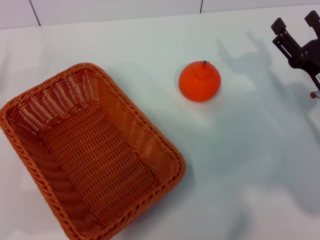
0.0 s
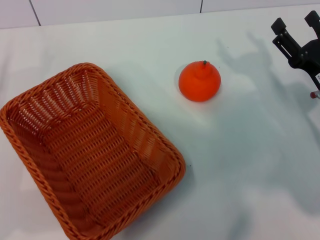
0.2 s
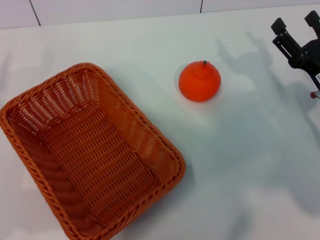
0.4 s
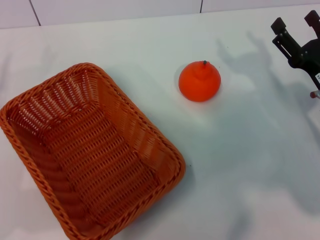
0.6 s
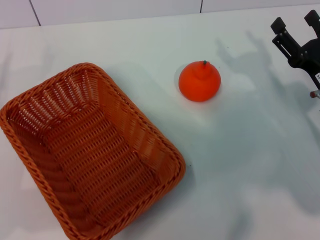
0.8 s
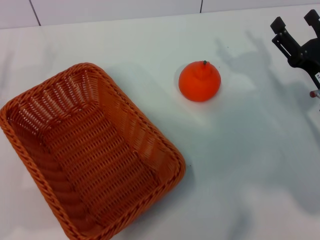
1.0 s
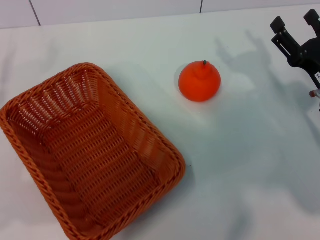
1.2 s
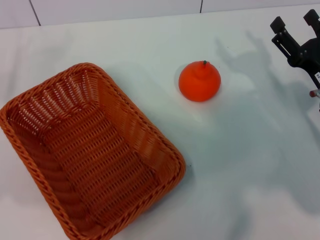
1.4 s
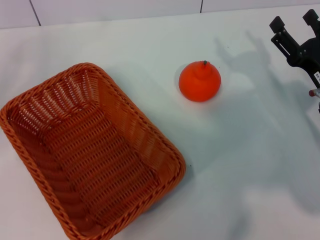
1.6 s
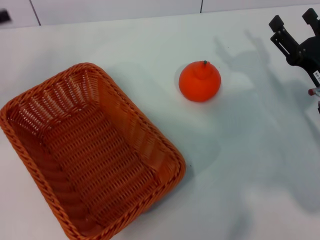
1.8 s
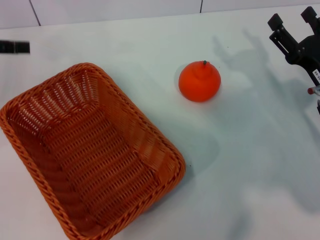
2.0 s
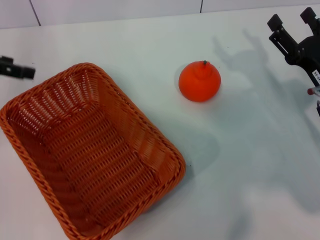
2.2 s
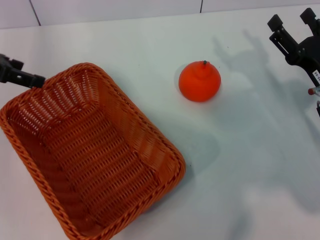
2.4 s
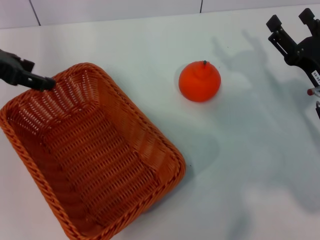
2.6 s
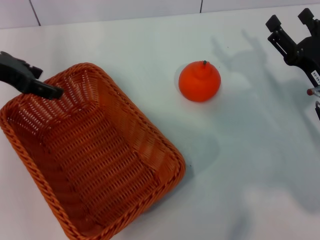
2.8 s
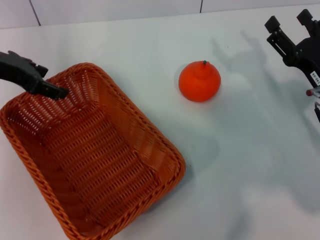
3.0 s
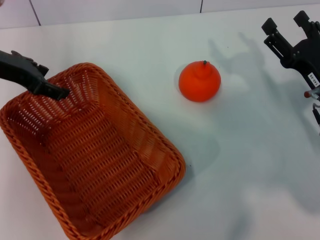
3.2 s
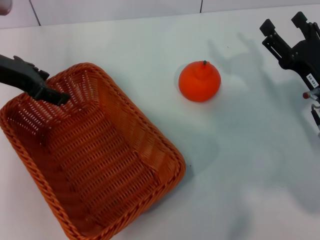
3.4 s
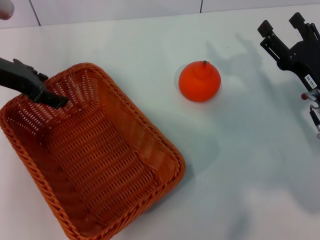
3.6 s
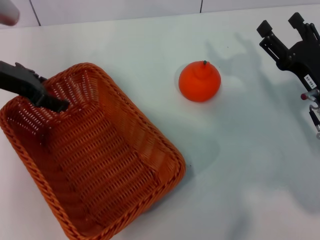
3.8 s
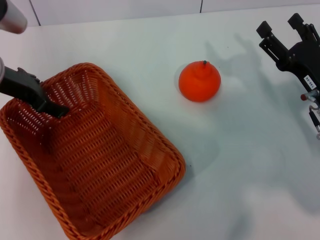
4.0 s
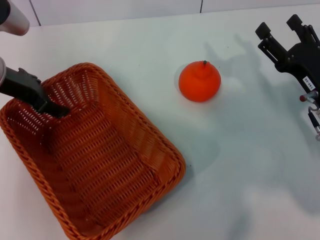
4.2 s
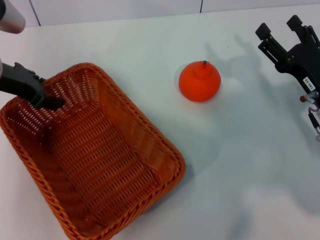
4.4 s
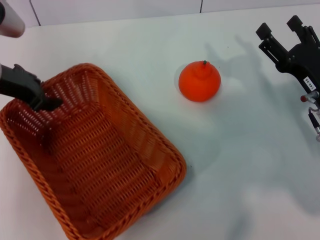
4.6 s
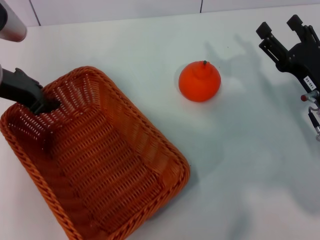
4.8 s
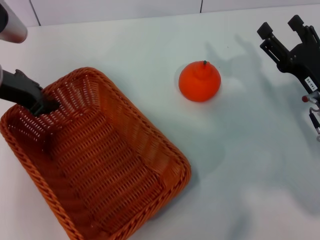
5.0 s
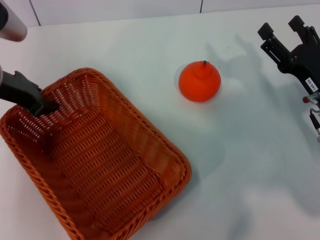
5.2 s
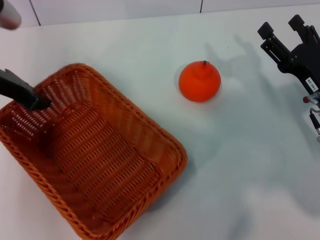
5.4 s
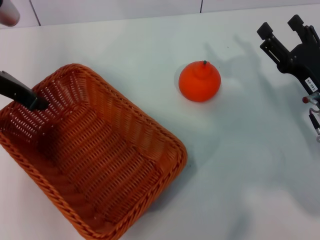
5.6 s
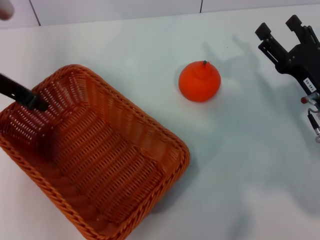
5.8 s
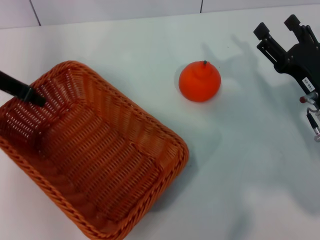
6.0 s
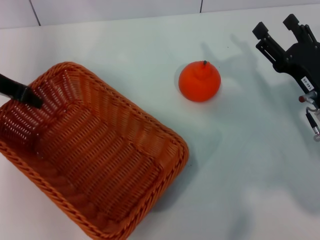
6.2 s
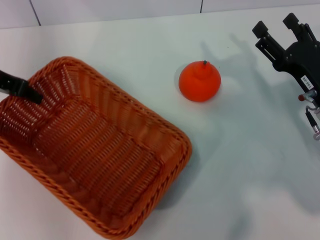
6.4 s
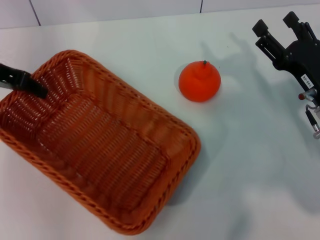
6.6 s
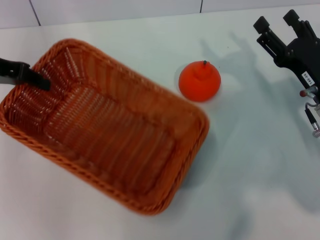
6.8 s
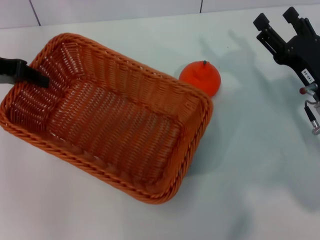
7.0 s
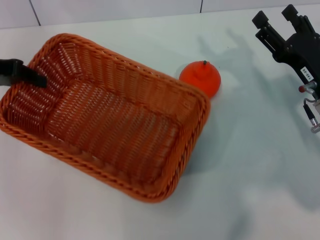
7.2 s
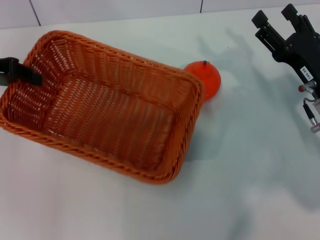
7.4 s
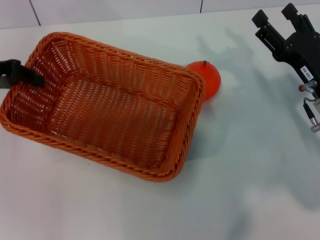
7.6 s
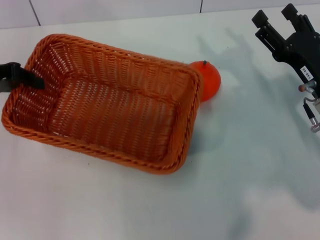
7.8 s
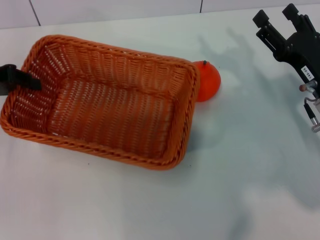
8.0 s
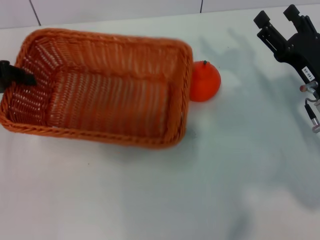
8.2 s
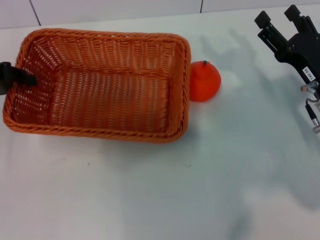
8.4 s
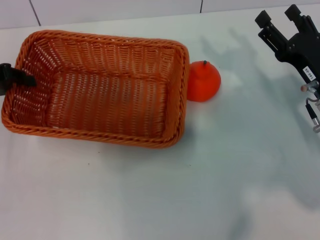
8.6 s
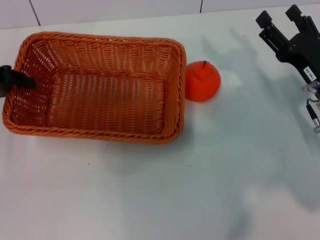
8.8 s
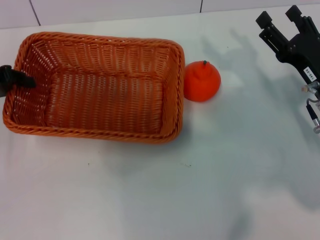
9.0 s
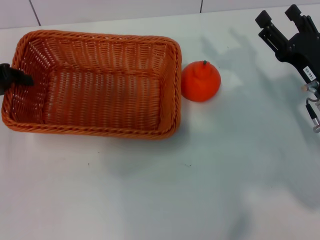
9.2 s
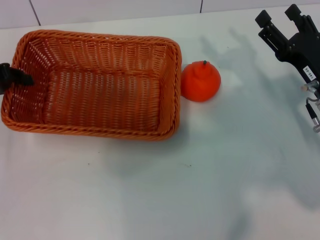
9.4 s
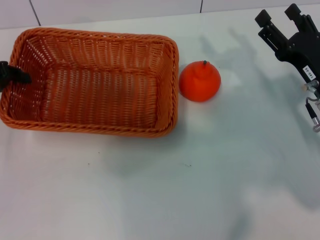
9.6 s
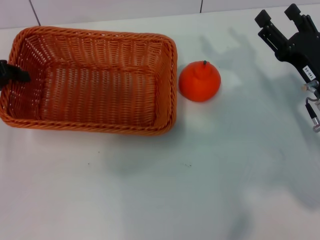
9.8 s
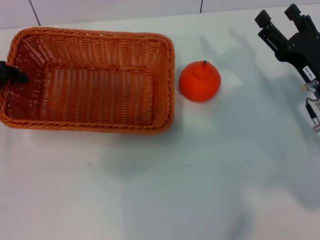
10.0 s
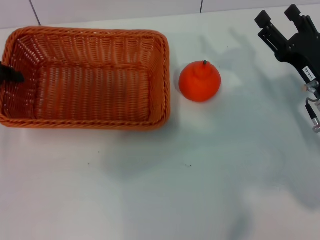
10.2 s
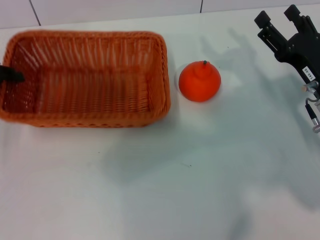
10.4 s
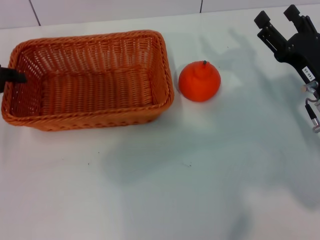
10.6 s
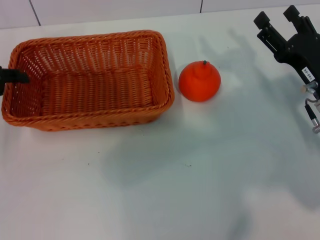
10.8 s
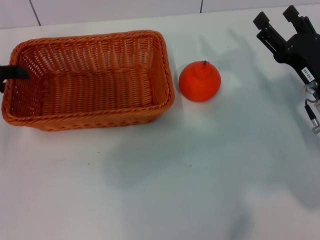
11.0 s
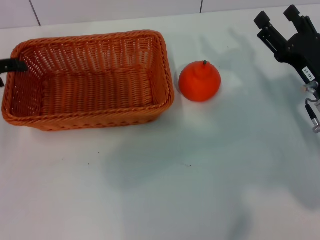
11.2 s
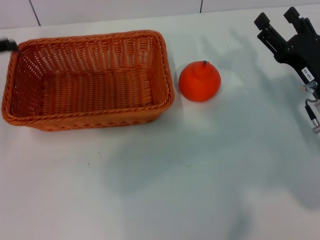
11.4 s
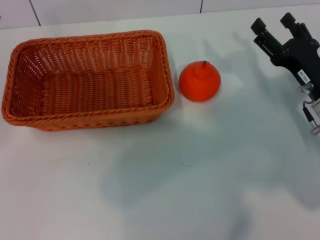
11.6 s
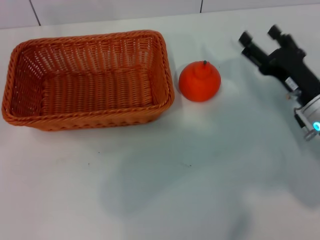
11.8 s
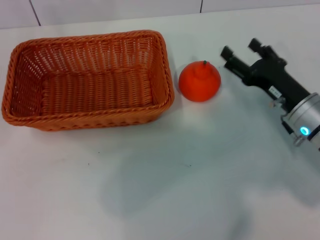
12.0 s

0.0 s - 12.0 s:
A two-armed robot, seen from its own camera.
Task of the whole recording: the left gripper pick up the yellow basket and place it horizontally in the middle of the table, the right gripper pick up the orange and place it into the yellow basket.
Step, 0.0 s - 6.8 s: Pick up the light basket with the left gripper.
Step, 7.0 s - 11.2 s: Place the light basket in the center of view with the left gripper.
0.0 s - 1.6 s: The left gripper goes about 10 cm upward and forward.
1.6 s - 3.0 s: The left gripper travels to the right, forward and upward by roughly 15 cm.
3.0 s - 4.4 s: The grippers stay close to where they were, moving slightly.
4.4 s - 6.0 s: The left gripper closes up.
6.0 s - 7.6 s: The left gripper moves some 5 cm.
7.6 s - 9.0 s: The grippers move only a little.
9.0 s - 10.4 s: There are only small adjustments of the grippers.
10.4 s - 12.0 s: The left gripper opens up.

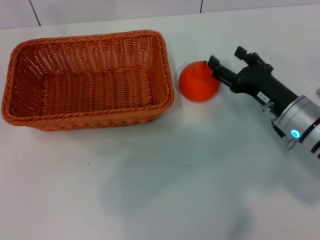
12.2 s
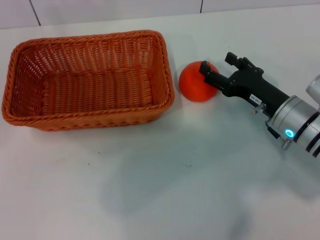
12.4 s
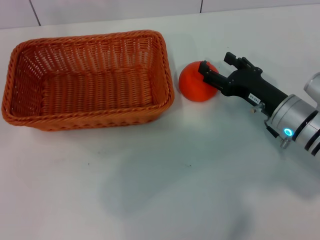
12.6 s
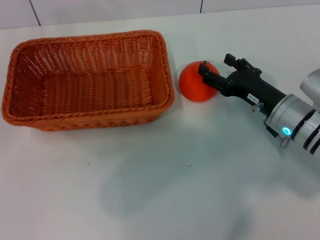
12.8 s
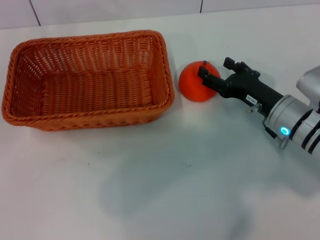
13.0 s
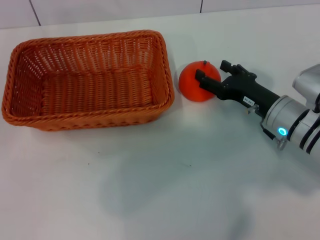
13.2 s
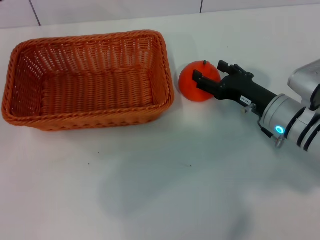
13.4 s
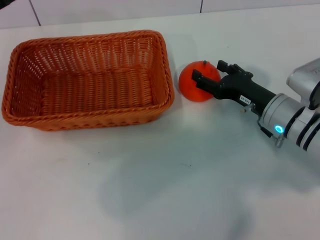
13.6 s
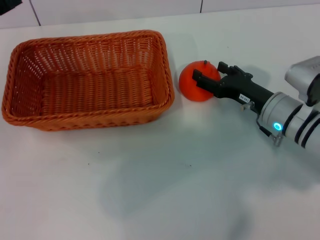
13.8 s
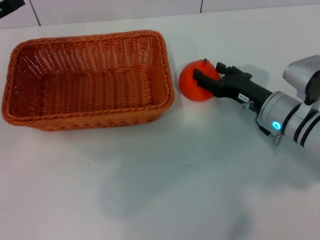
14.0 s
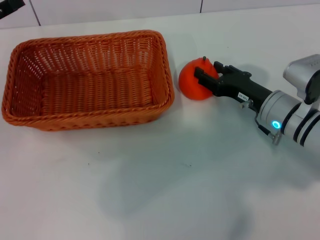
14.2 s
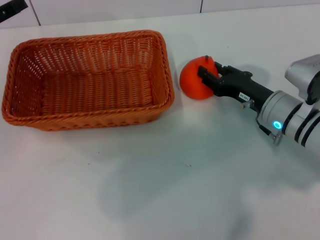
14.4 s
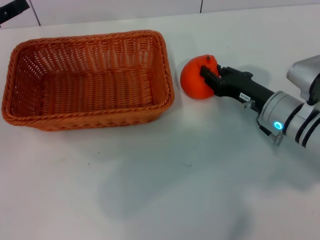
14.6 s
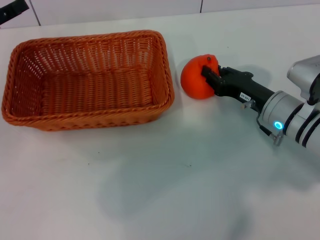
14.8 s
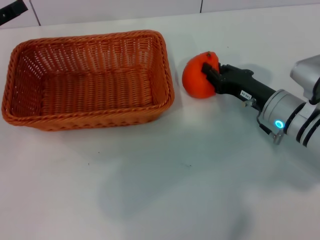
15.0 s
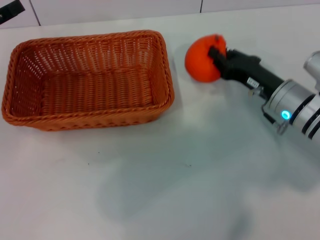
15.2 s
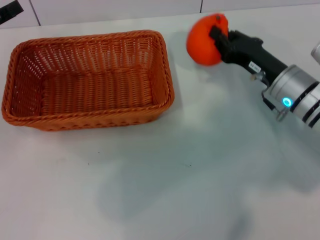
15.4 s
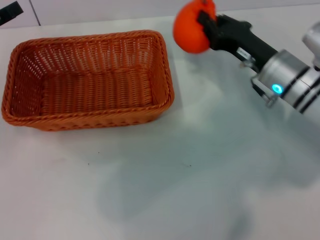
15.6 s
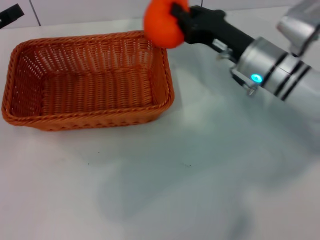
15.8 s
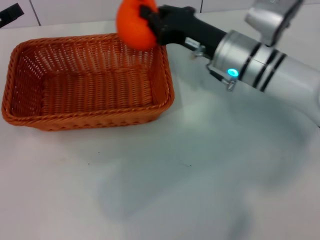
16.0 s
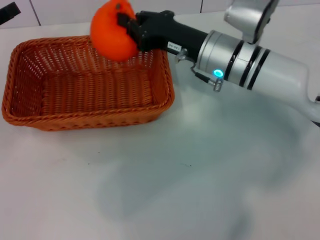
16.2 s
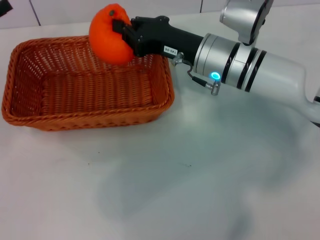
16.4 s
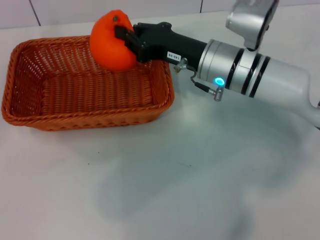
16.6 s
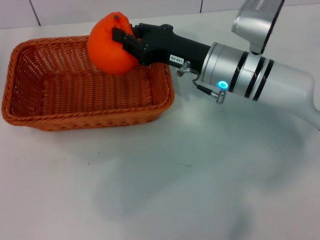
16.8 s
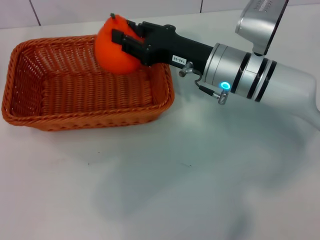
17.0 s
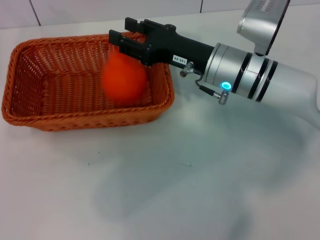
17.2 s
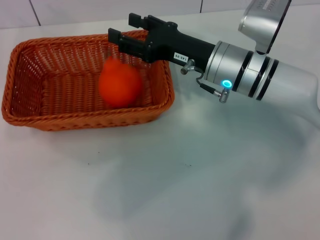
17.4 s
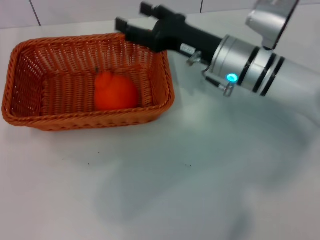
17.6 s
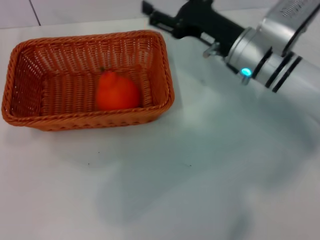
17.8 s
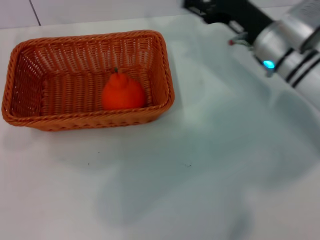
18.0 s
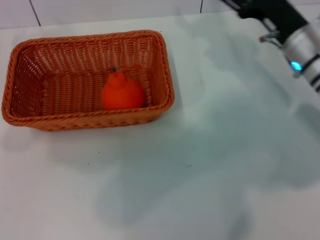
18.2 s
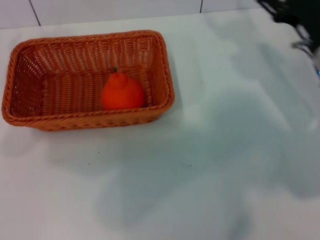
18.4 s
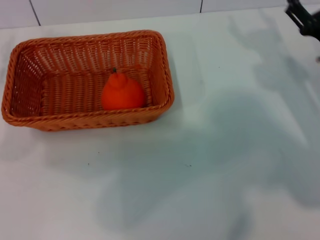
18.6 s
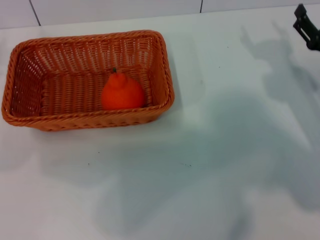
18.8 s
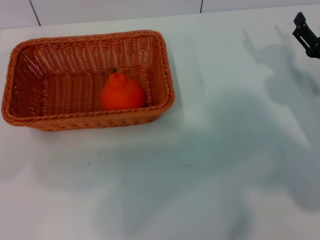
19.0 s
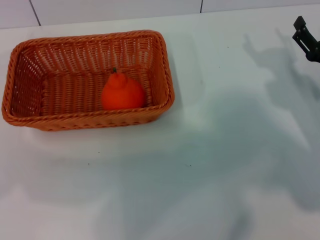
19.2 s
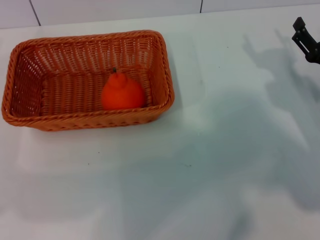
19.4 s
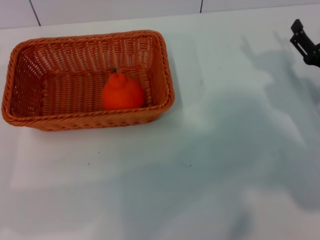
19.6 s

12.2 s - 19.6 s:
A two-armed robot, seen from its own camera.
Task of the whole recording: the left gripper pick up the yellow basket and place it horizontally in the middle of the table, the right gripper pick up the orange and place it into the yellow basket.
Step, 12.2 s - 15.4 s: Pick up the orange with the right gripper.
Step, 15.6 s - 17.8 s: Place the orange into the light basket with the right gripper.
12.2 s - 13.6 s: There are only small adjustments of the grippers.
13.6 s - 15.2 s: The right gripper closes up.
15.2 s - 16.6 s: The right gripper shifts about 10 cm to the left and upward.
16.6 s - 18.2 s: The right gripper is displaced to the right by about 10 cm, and opens up.
18.2 s - 19.6 s: The right gripper is displaced backward, to the right and downward by some 10 cm.
